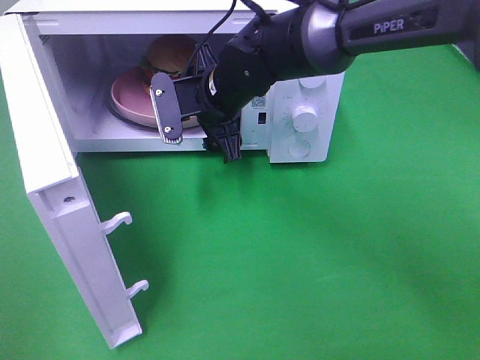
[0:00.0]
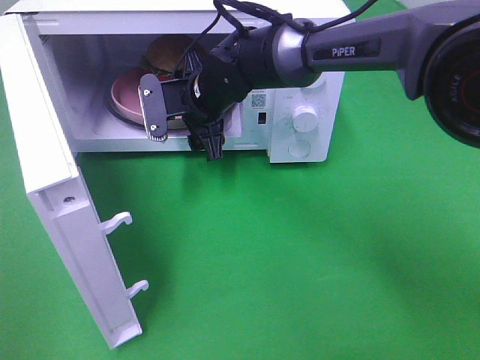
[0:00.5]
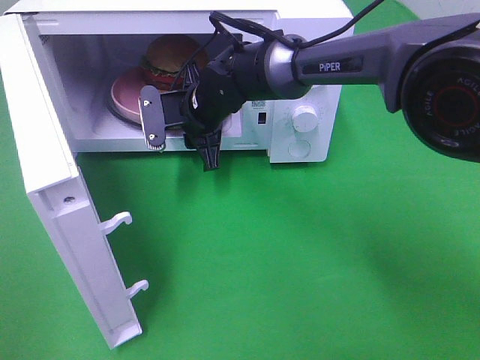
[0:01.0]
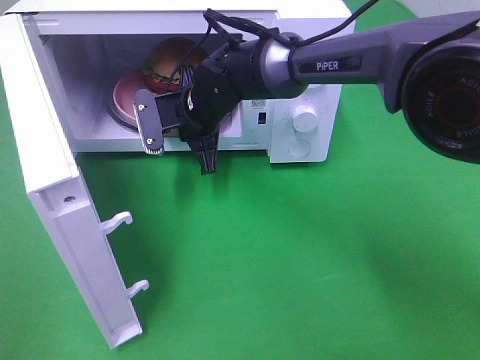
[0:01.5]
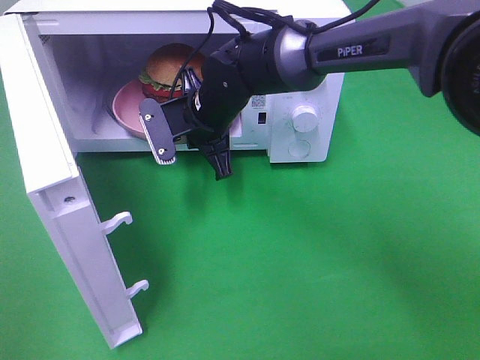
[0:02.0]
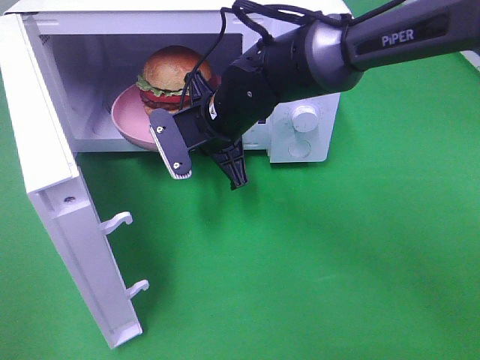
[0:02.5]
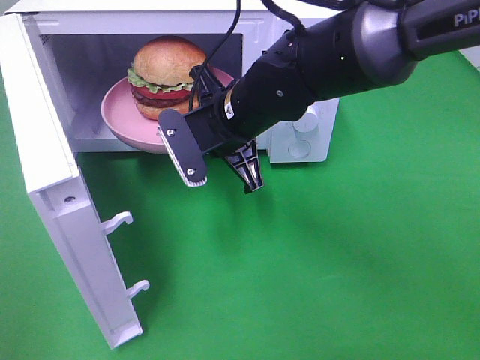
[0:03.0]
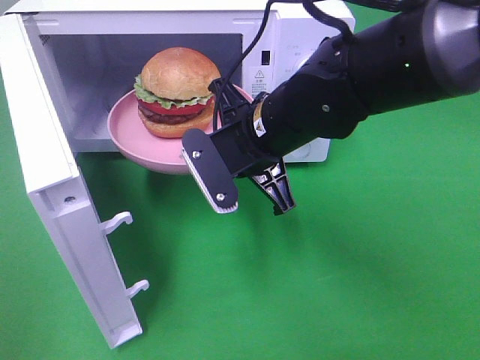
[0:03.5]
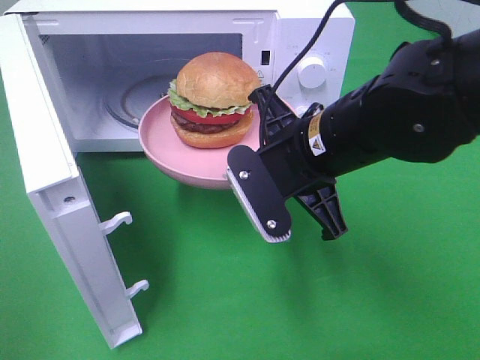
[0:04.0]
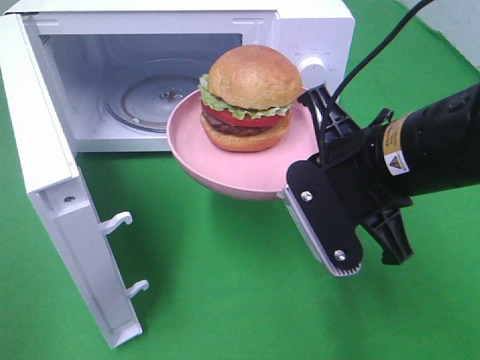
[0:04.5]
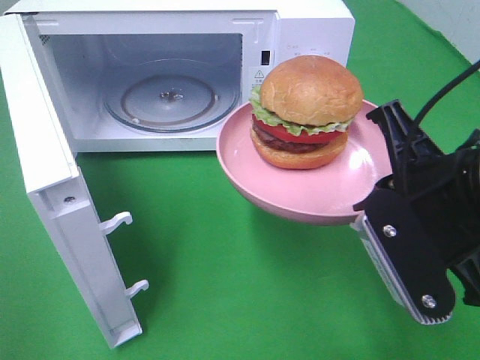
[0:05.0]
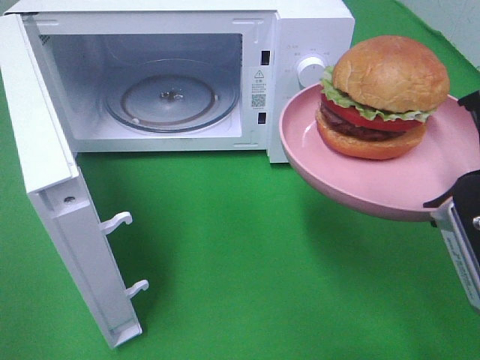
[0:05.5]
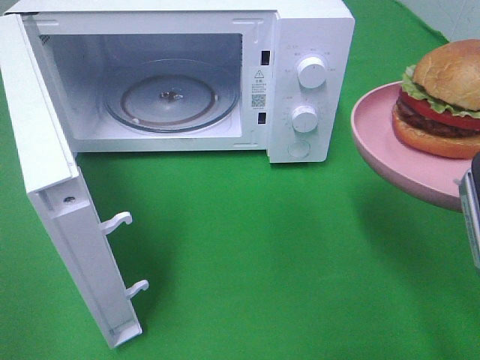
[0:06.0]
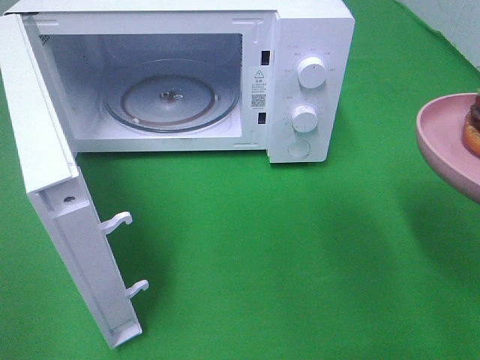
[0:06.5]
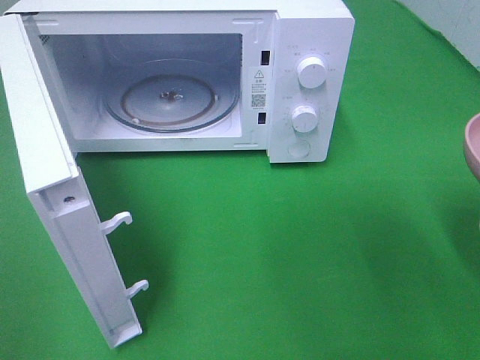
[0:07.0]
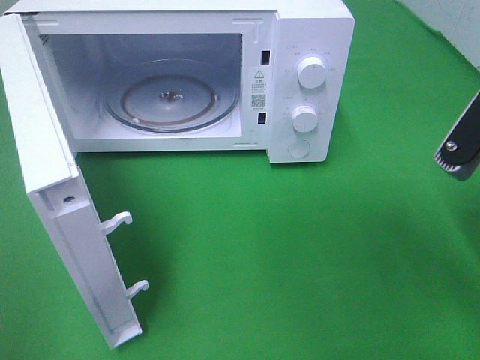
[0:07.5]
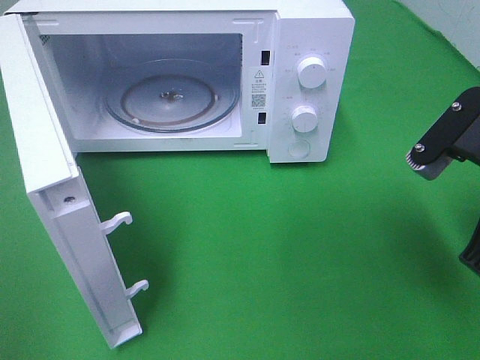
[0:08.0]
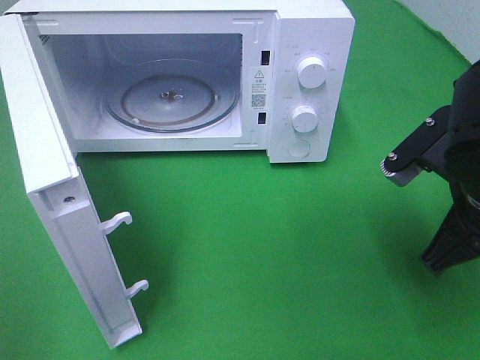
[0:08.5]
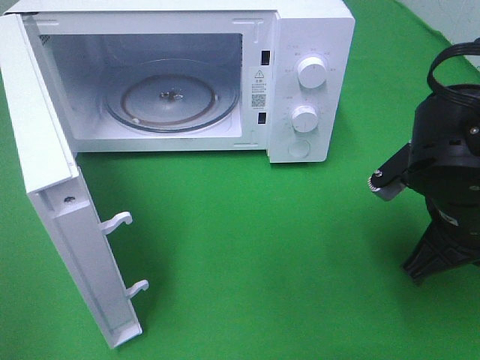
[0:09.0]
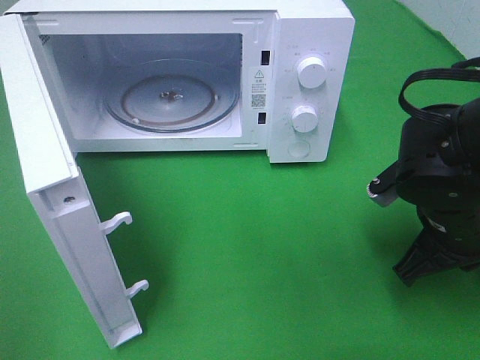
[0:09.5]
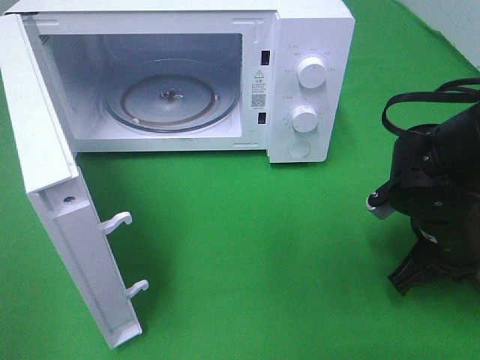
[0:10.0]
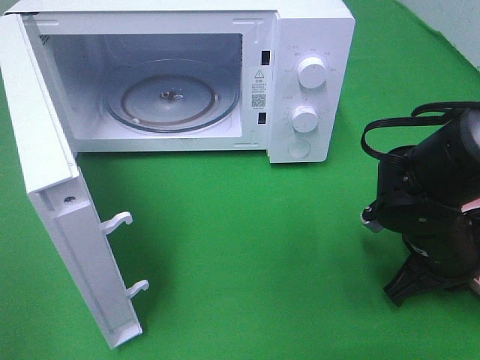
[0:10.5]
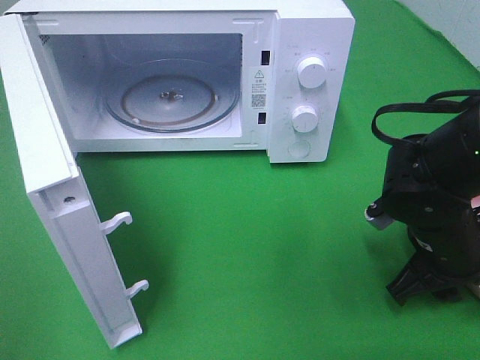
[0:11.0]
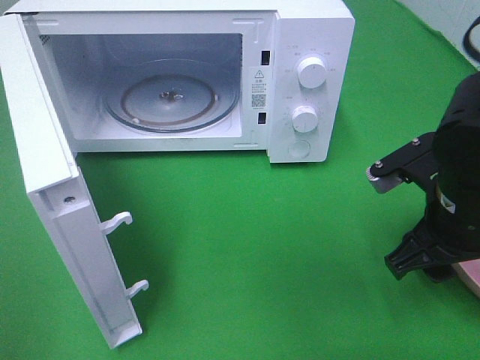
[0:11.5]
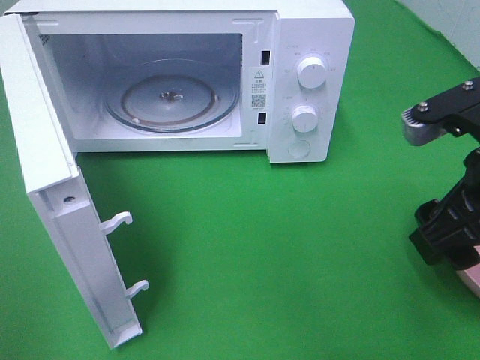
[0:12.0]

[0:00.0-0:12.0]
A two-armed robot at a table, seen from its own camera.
Task of the whole recording: Heat the burger.
0:00.0 to 0:02.0: The right gripper closes its fingers.
0:02.0 to 0:04.0: The right gripper shifts approximately 20 cm backward and to the right.
0:04.0 to 0:06.0: The right gripper heads to the right, backward and upward, covering approximately 20 cm.
0:06.0 to 0:08.0: The right gripper goes approximately 5 cm forward.
0:08.0 to 0:10.0: The right gripper travels downward by some 10 cm.
0:10.0 to 0:12.0: The right gripper goes approximately 15 cm upward and backward, and opens up.

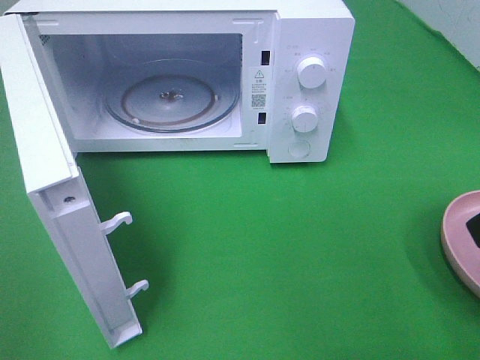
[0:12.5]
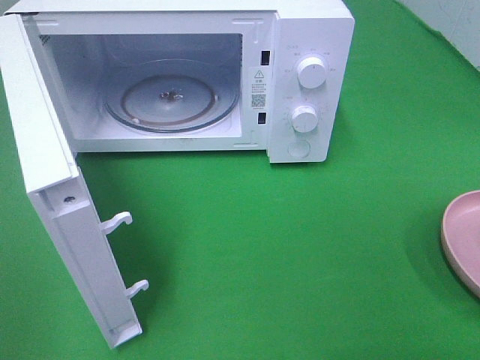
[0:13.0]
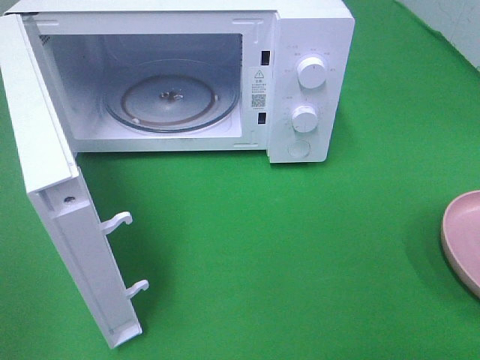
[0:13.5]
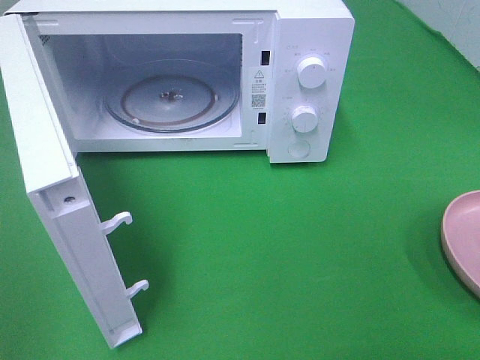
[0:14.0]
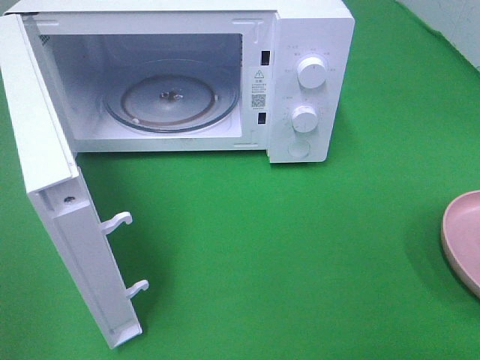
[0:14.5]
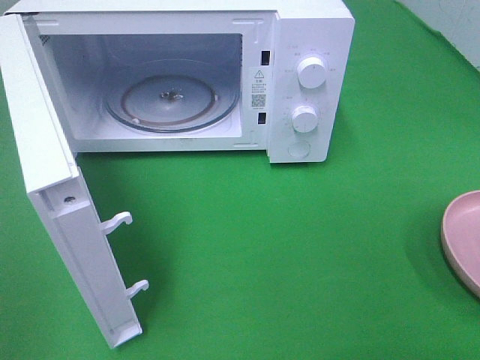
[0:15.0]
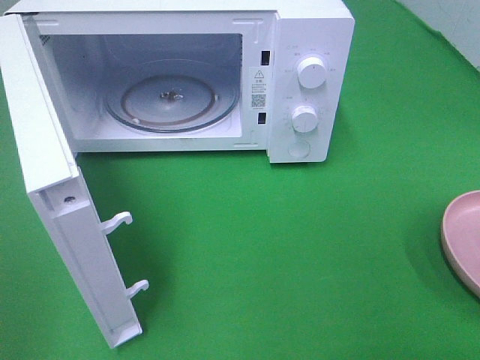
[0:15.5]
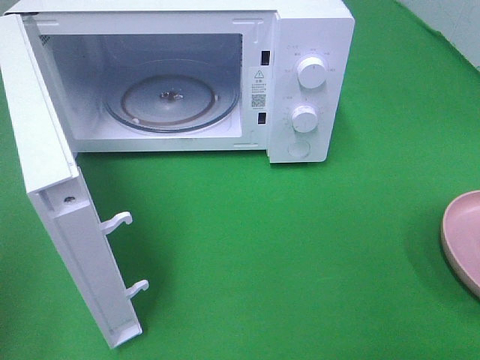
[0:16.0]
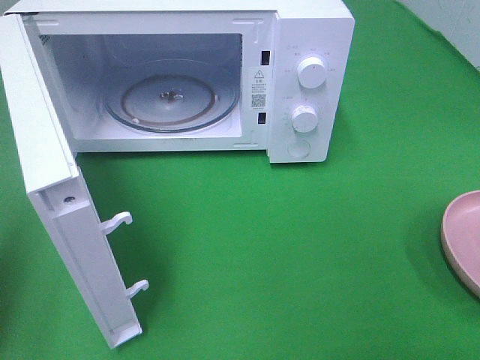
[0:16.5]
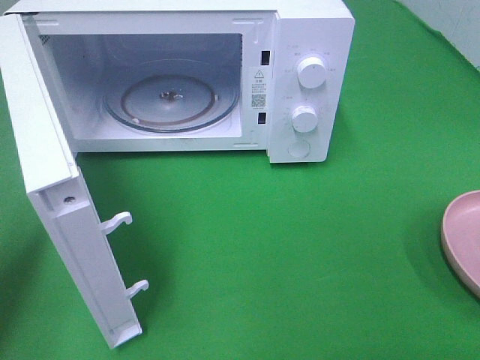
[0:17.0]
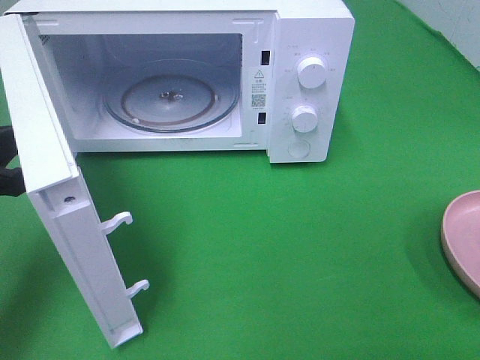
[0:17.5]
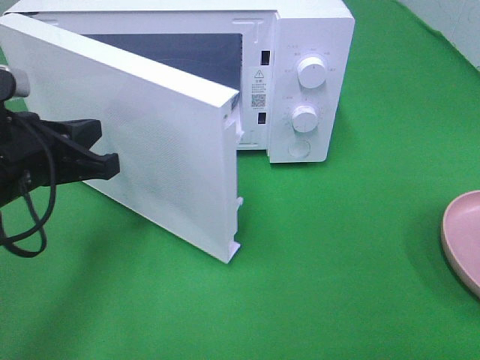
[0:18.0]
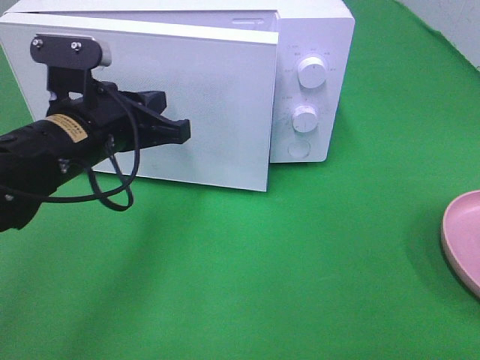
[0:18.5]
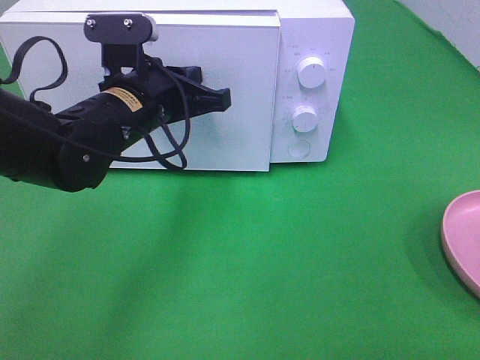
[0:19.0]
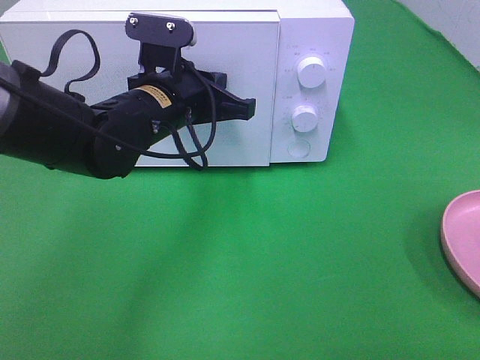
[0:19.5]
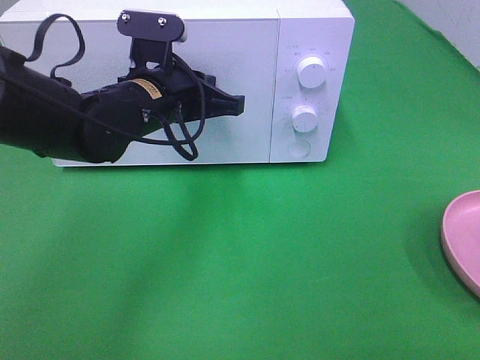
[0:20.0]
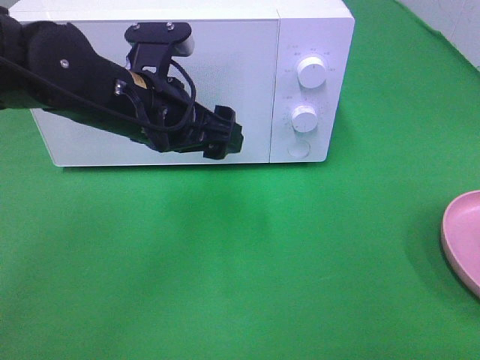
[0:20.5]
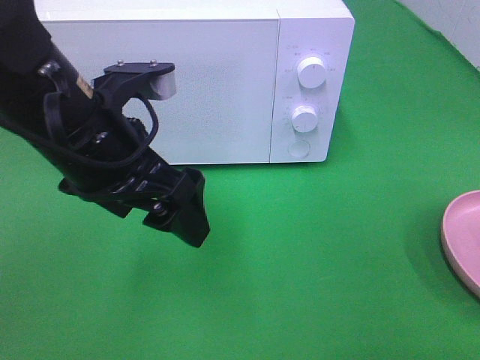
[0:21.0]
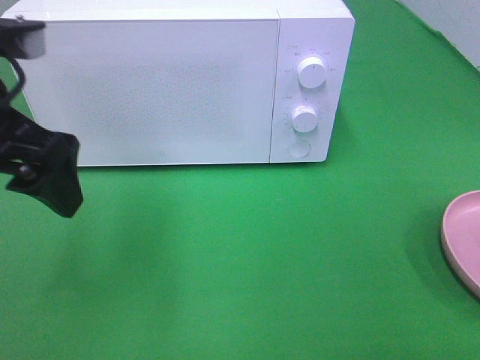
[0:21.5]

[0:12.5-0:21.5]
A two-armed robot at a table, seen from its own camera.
Task of the whole recording: Heat the burger.
Step, 0:12.5 to 0:20.0: Left hand: close the microwave door.
0:14.5 to 0:17.0: The left gripper travels forward by approximately 20 cm, and closes up.
0:17.0 to 0:19.5: The left gripper heads to the right and forward, covering about 30 cm.
0:19.5 to 0:21.5: The left gripper moves to the left, backward and upward, about 20 cm, and opens.

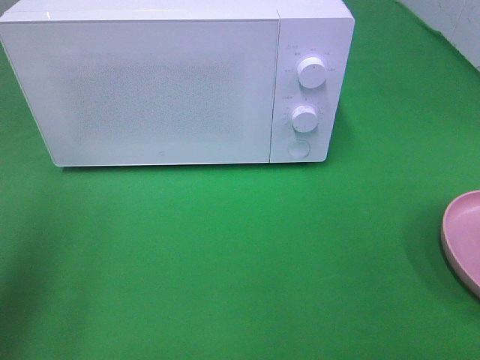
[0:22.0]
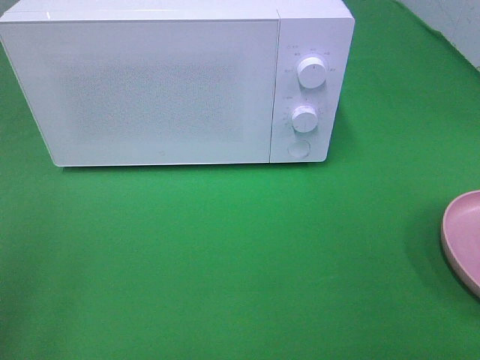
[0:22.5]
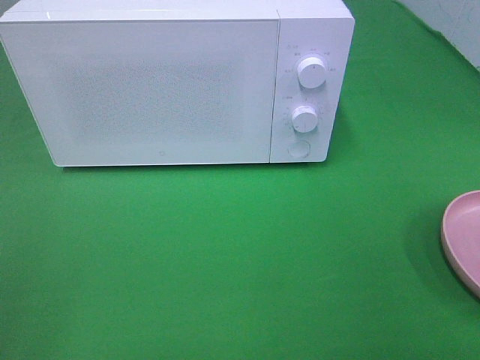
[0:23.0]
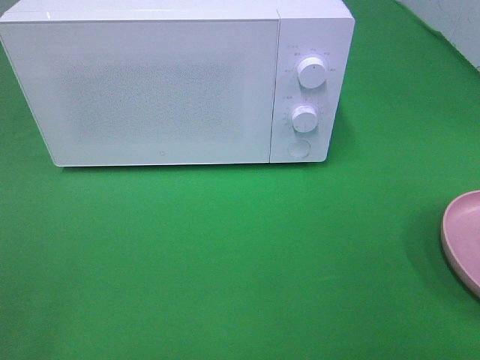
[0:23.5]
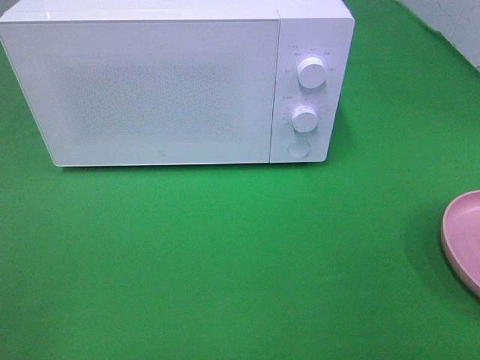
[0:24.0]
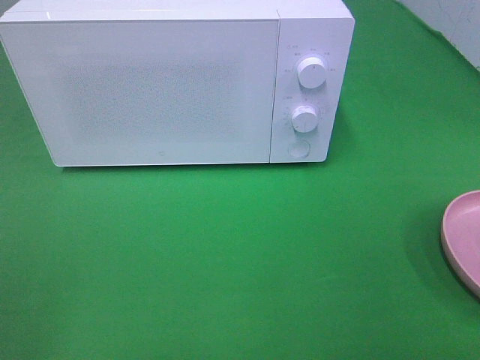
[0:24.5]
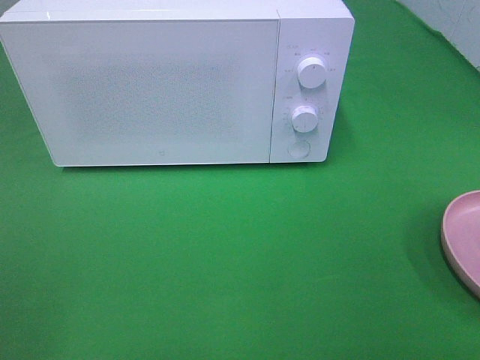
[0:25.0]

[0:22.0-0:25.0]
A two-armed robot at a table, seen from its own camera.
Task of the whole recording: Heat the burger.
0:22.0 to 0:23.5: The left gripper goes approximately 15 cm backward.

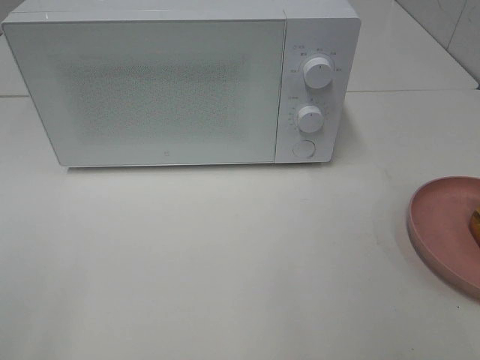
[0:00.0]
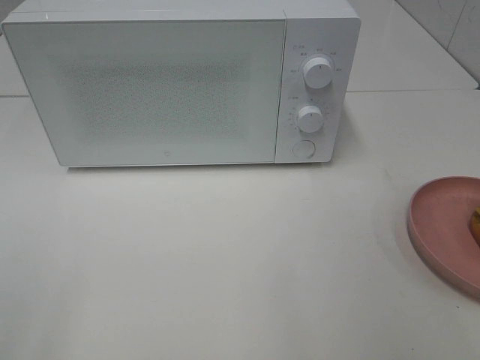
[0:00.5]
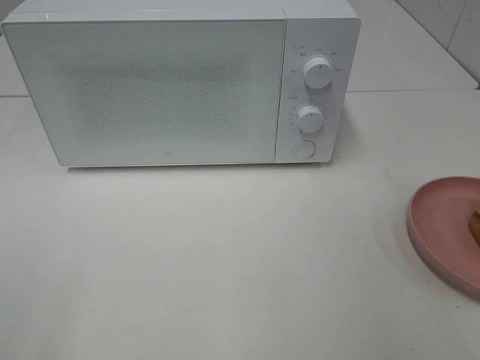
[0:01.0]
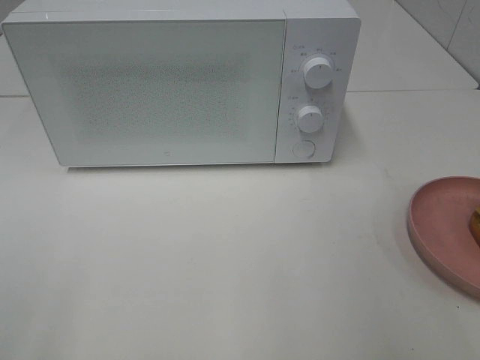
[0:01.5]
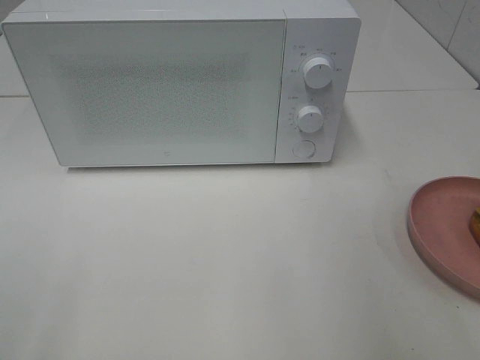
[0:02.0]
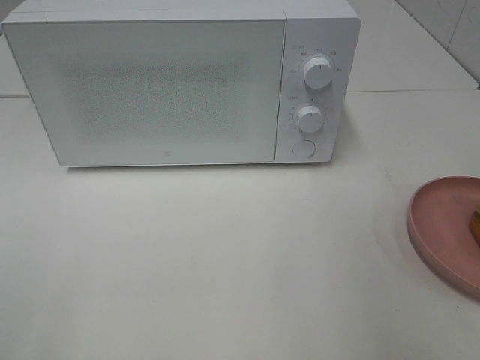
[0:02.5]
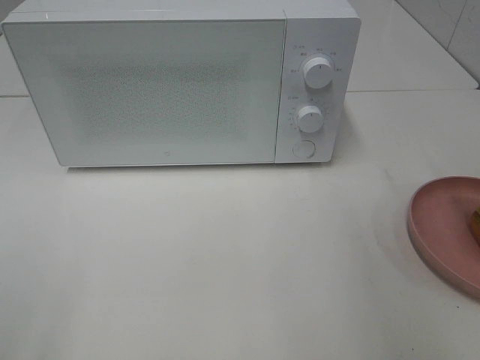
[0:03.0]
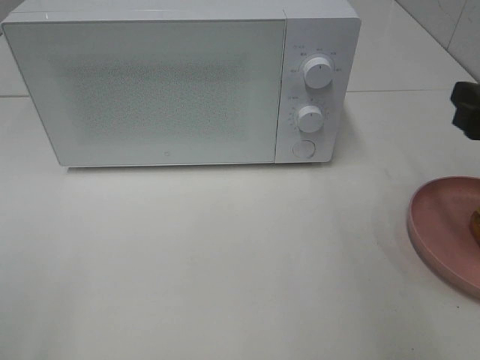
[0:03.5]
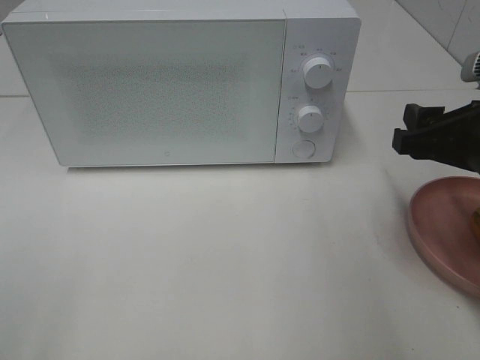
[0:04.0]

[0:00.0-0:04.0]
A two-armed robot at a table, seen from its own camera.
Task of the whole recording: Heat the burger.
0:02.0 to 0:04.0: The right gripper travels forward, downward and to the left by some 15 cm.
